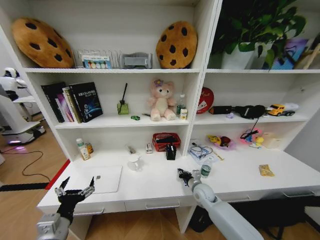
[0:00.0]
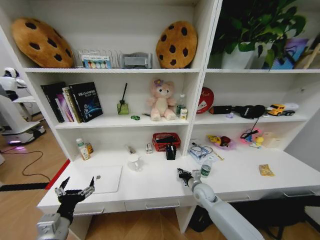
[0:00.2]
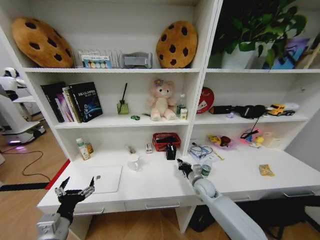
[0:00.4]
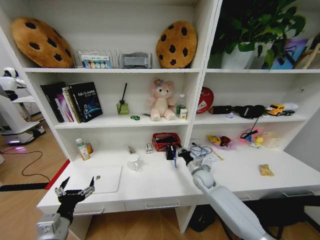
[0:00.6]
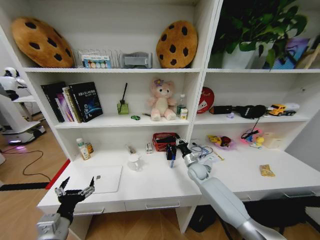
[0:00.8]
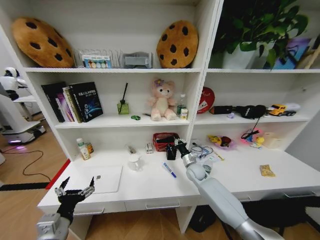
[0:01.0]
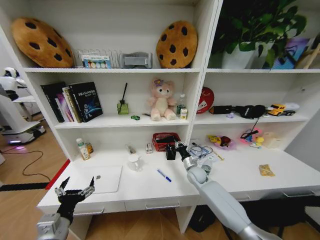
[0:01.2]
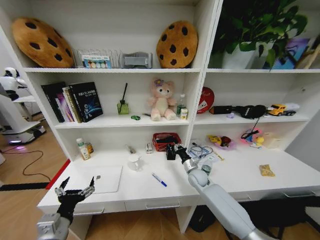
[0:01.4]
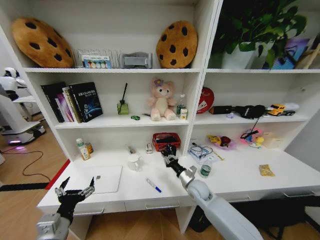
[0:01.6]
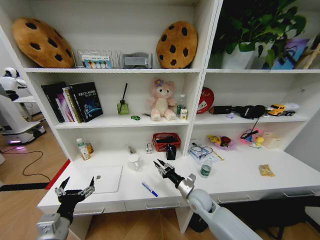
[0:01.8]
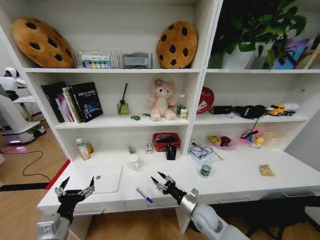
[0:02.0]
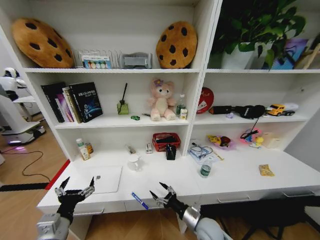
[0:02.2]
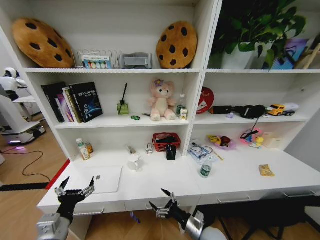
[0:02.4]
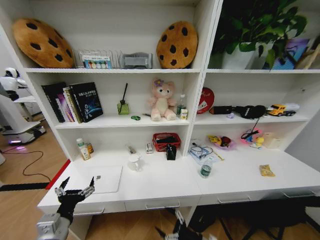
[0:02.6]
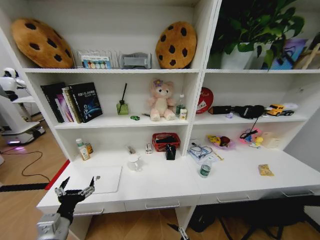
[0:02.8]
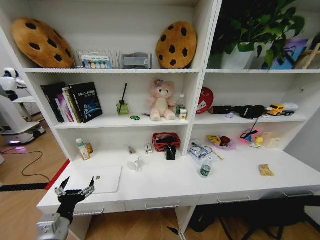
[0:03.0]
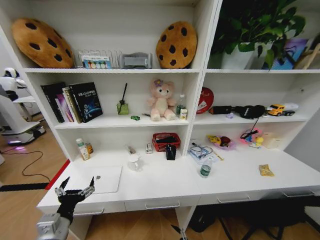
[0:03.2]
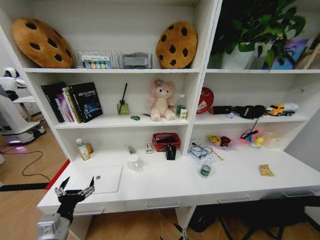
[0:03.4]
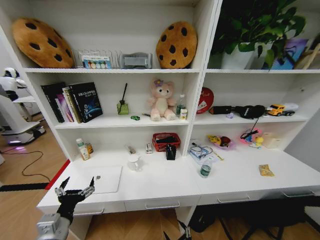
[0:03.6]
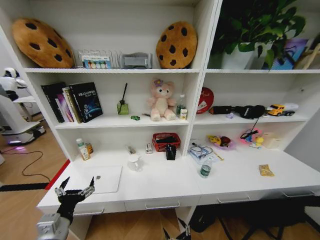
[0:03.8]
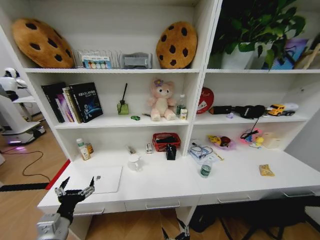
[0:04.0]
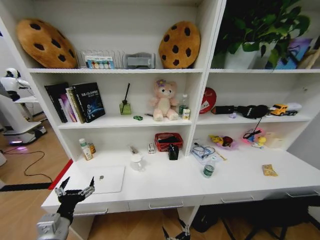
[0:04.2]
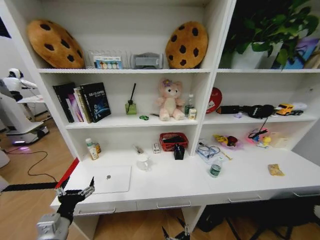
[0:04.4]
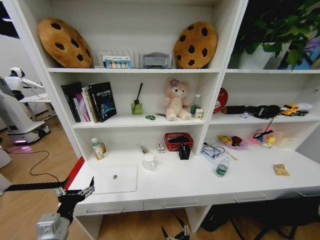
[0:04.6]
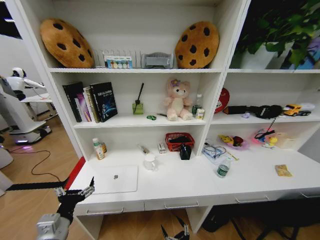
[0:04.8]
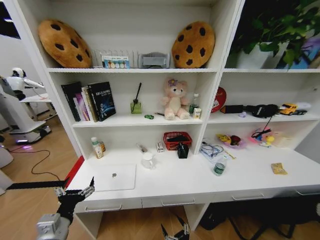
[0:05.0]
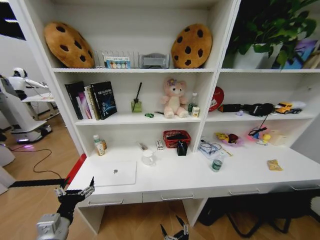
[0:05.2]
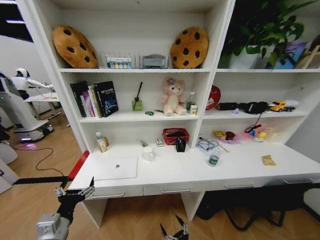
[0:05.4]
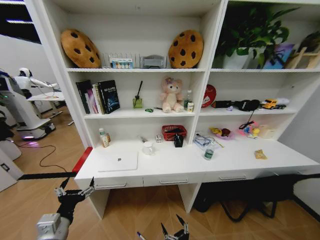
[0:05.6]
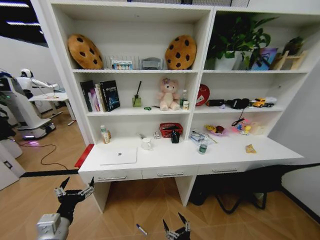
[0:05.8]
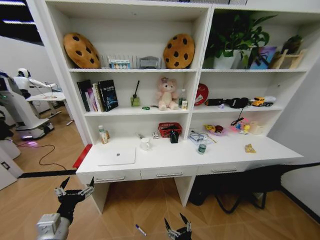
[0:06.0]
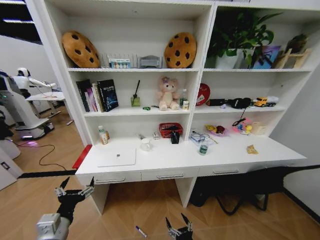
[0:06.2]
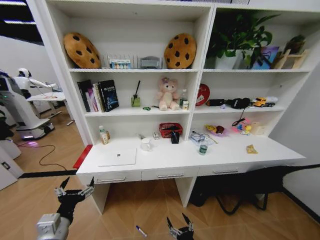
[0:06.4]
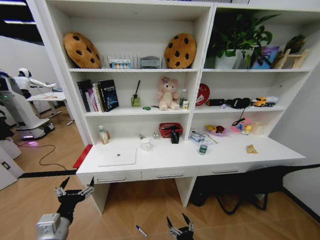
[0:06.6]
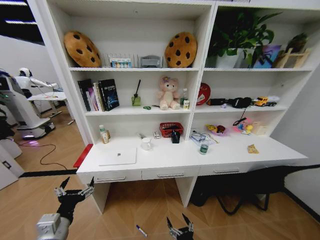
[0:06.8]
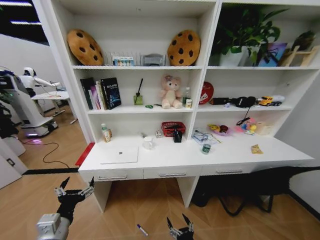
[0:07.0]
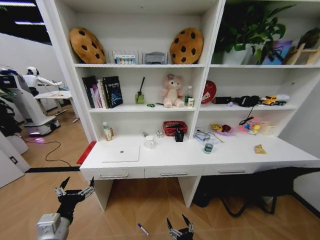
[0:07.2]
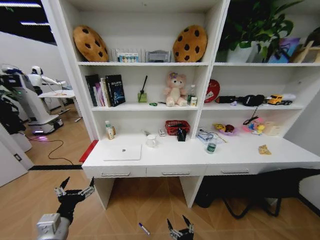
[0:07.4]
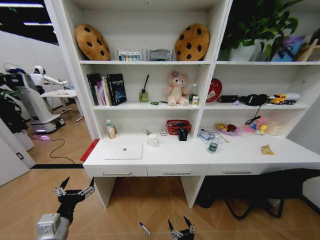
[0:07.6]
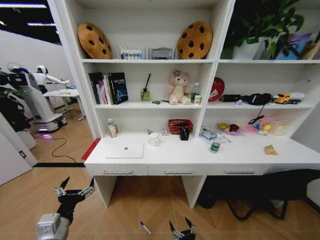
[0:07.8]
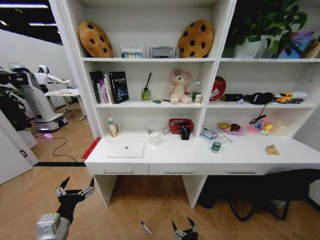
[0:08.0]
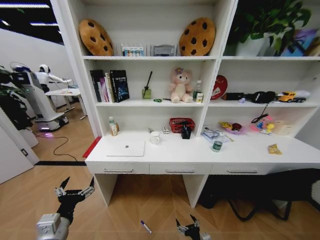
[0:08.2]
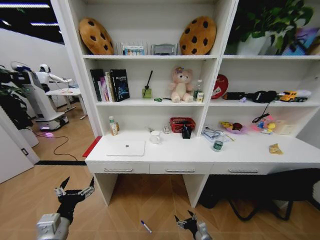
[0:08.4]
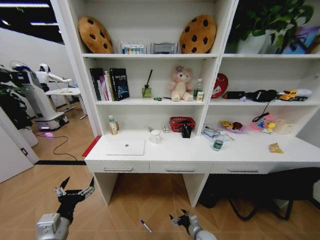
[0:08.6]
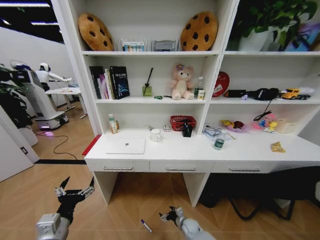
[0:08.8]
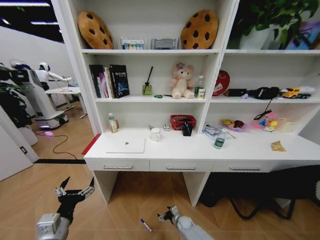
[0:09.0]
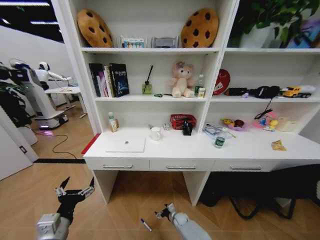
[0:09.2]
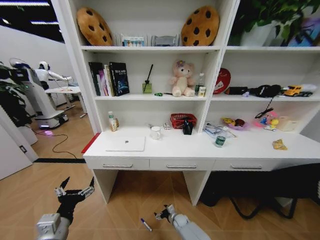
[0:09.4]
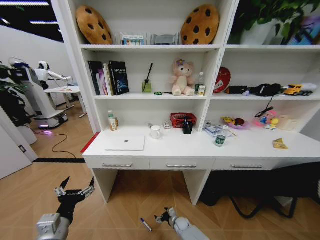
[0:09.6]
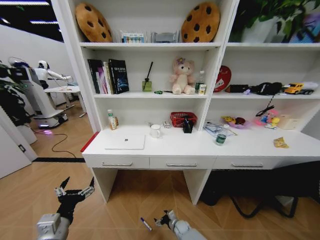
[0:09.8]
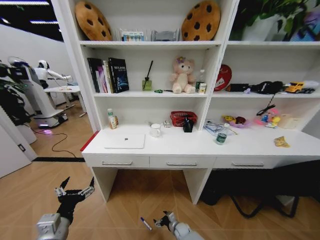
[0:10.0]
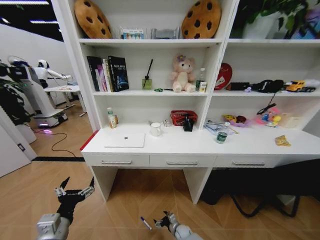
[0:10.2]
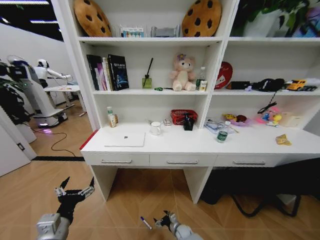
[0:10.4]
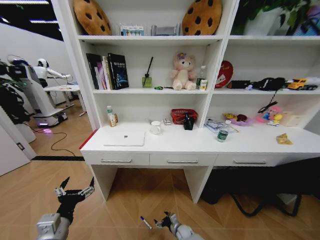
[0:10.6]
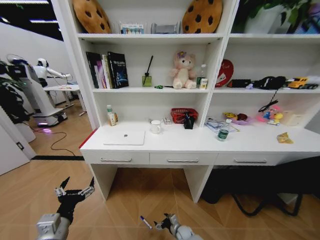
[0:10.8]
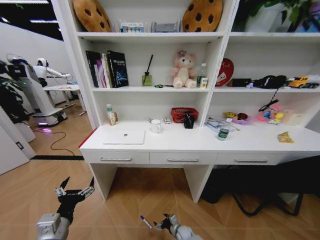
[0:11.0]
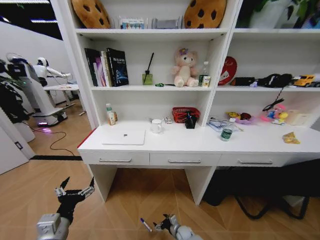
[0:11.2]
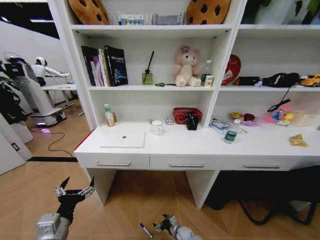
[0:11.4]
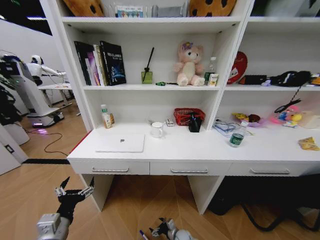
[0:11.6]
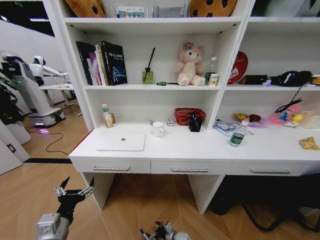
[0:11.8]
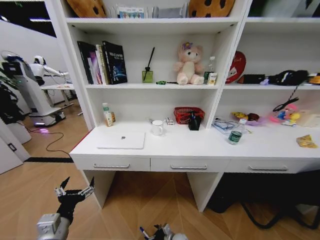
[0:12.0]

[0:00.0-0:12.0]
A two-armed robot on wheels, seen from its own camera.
Task of the whole recording: Organize the objects on the table.
0:00.0 to 0:01.6: The right gripper travels forward and back again, about 10 cm each way.
0:01.6 to 0:03.0: The right gripper heads backward, covering roughly 30 cm, and opens.
0:03.0 to 0:04.4: The right gripper shifts some 5 cm to the left.
0:07.6 to 0:09.0: The right gripper travels forward and downward by roughly 30 cm.

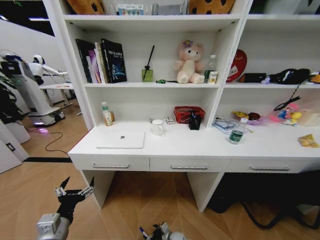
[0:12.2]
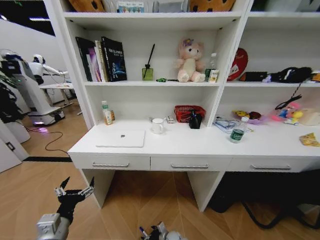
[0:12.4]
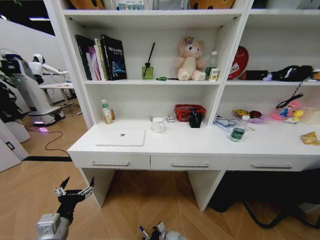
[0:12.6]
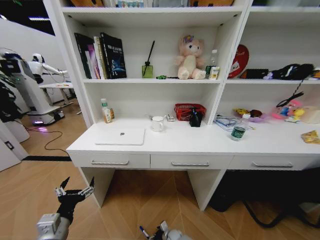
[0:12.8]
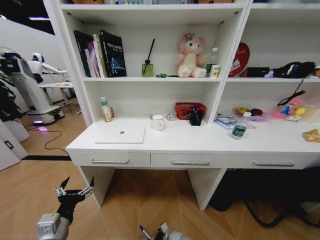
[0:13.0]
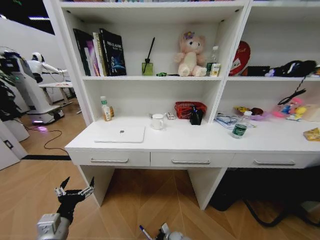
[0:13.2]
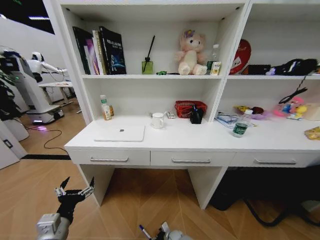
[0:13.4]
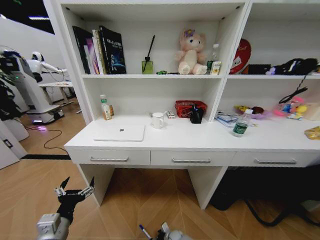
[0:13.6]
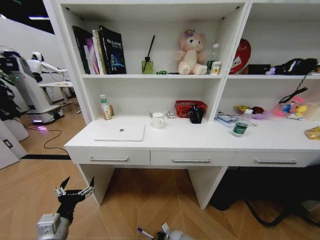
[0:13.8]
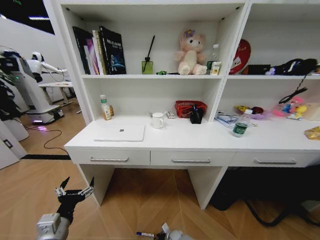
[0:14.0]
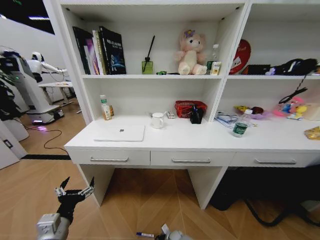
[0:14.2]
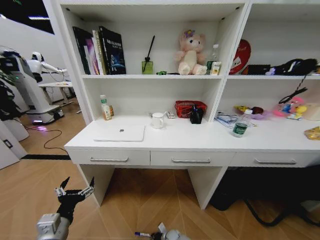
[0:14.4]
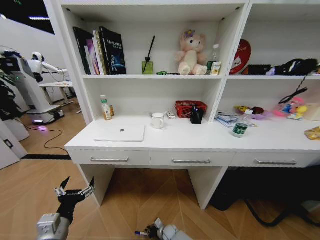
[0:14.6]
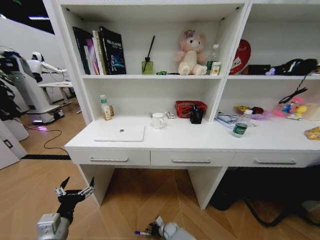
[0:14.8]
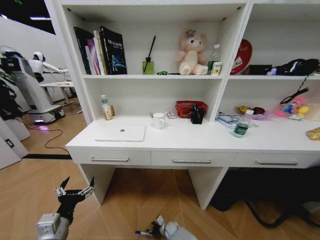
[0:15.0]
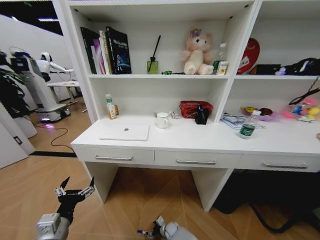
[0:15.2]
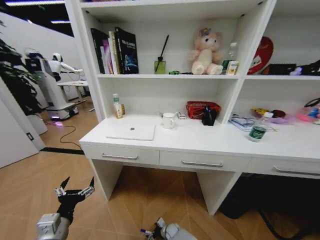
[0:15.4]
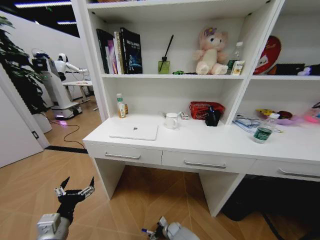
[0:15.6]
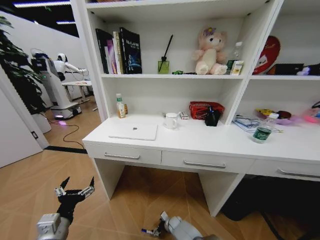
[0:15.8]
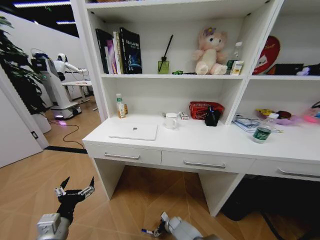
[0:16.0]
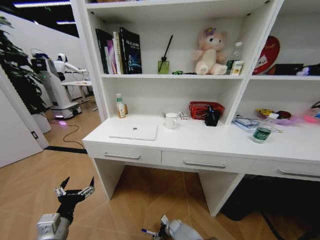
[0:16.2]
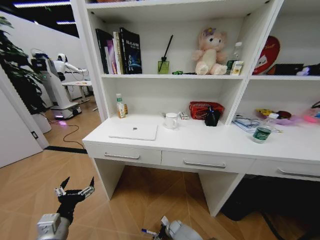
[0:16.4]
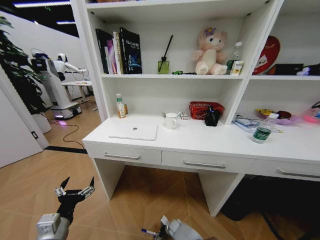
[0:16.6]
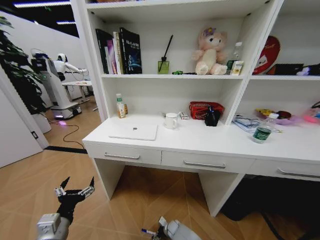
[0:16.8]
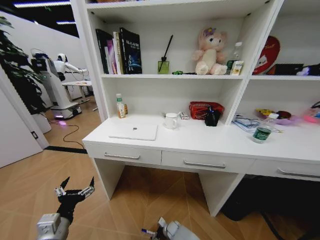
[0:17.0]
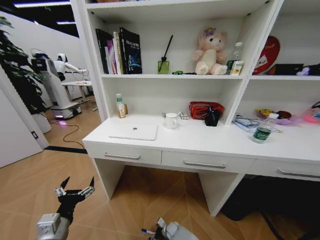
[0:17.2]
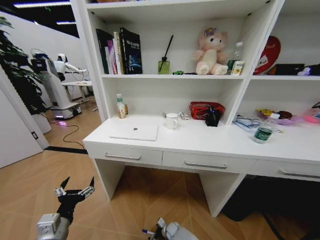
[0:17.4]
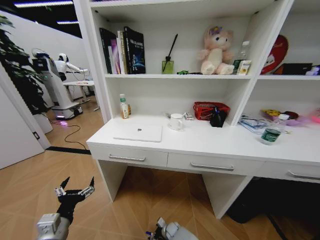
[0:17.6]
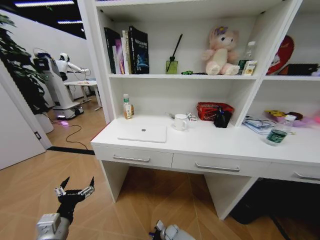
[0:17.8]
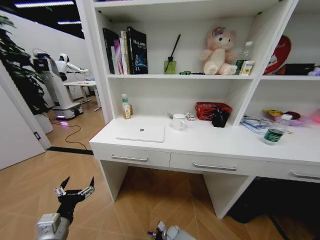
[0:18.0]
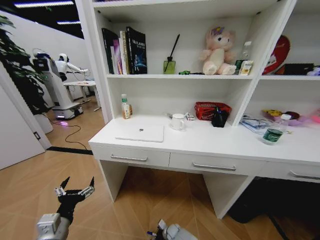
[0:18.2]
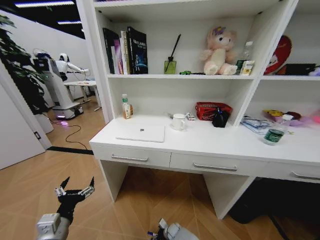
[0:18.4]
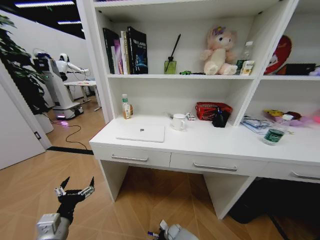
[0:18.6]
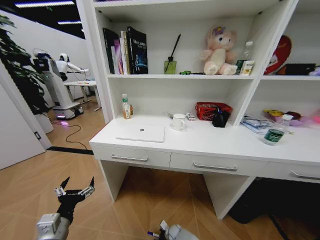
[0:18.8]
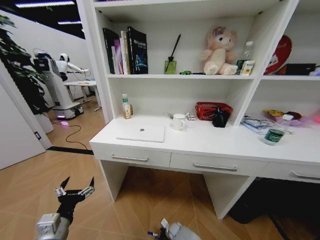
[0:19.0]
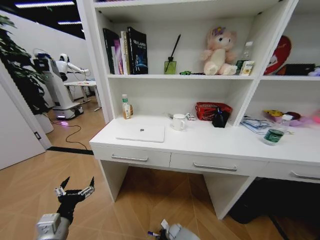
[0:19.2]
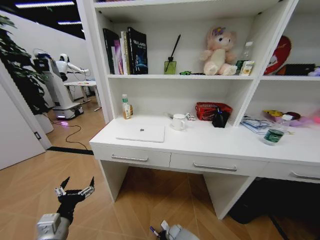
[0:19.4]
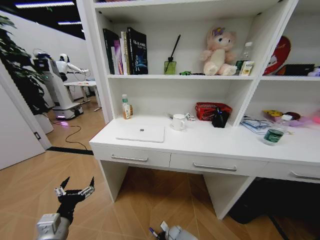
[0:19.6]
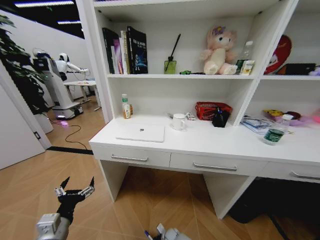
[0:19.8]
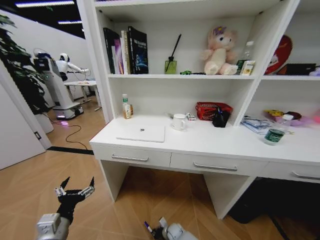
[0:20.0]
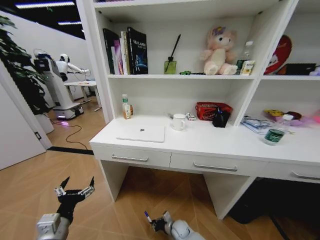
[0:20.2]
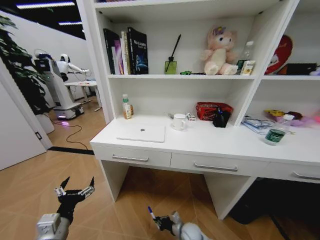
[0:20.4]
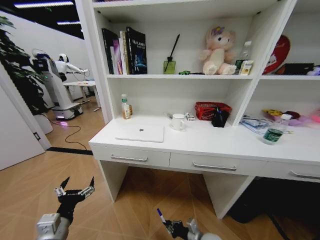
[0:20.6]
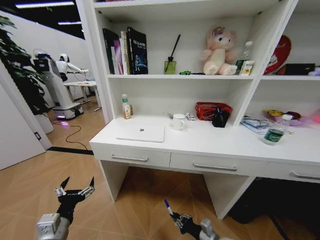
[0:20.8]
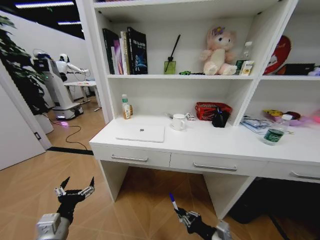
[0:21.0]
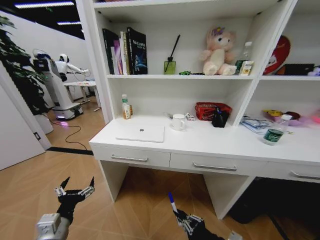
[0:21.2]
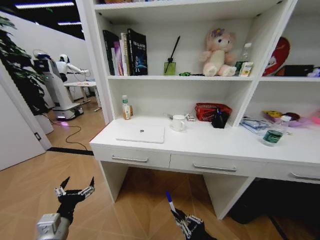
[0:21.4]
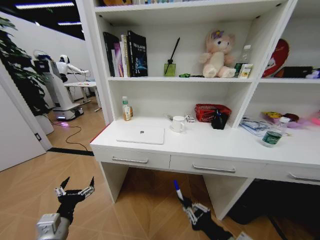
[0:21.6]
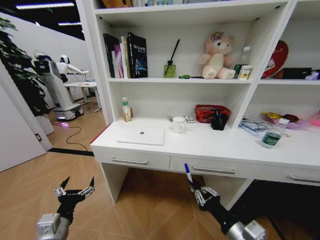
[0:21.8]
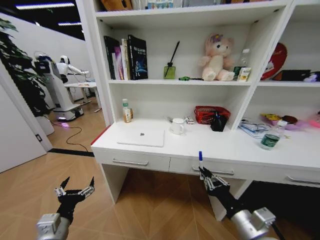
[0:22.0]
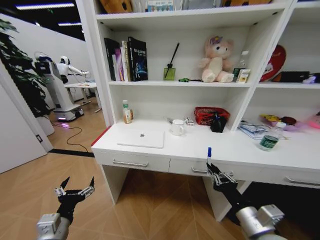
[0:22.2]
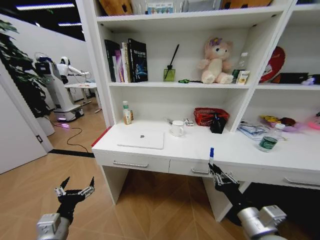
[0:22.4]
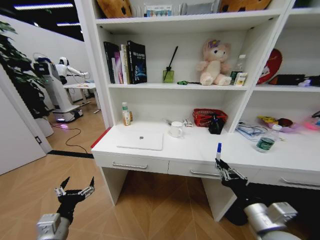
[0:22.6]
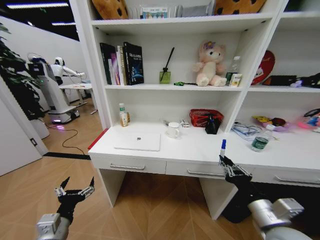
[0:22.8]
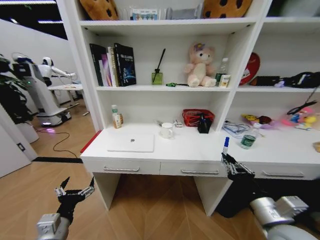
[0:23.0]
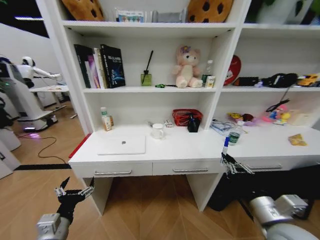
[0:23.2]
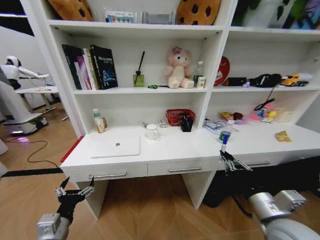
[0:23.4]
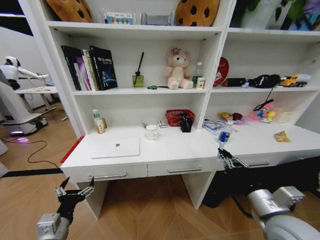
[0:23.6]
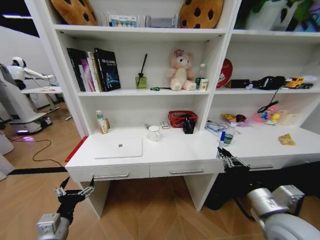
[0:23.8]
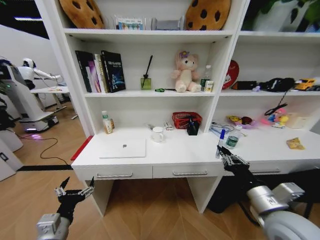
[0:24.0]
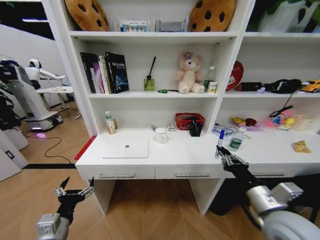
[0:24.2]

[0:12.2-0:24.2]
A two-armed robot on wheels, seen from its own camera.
Task of the whole recording: Organize the objects on the table.
0:12.2 to 0:13.8: The right gripper closes its fingers.
0:13.8 to 0:15.2: The right gripper closes and opens again.
0:18.2 to 0:19.8: The right gripper closes its fingers.
0:19.8 to 0:21.2: The right gripper shifts approximately 40 cm upward.
0:21.2 to 0:22.6: The right gripper travels upward by some 5 cm.
0:22.6 to 0:24.2: The right gripper moves some 5 cm.
